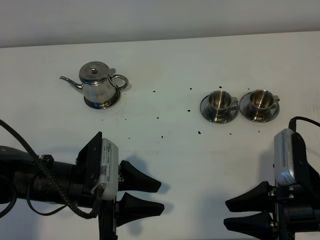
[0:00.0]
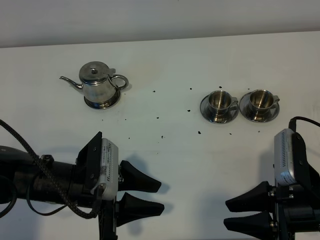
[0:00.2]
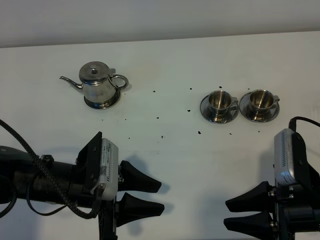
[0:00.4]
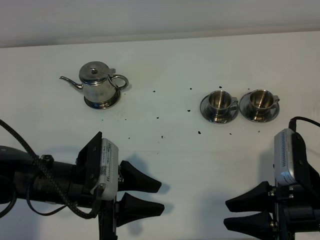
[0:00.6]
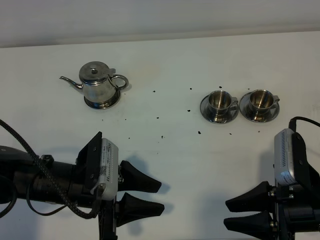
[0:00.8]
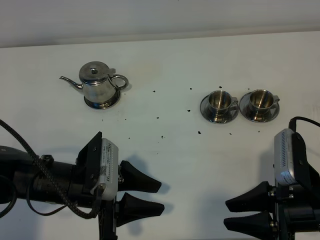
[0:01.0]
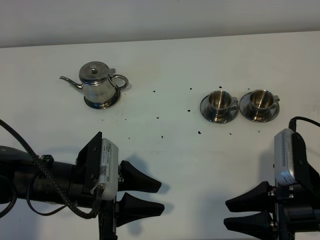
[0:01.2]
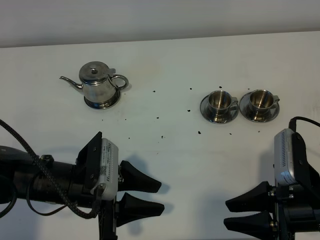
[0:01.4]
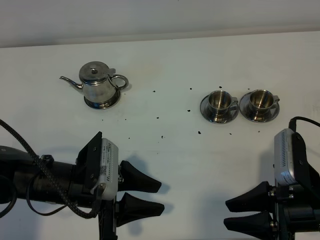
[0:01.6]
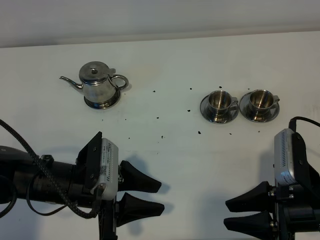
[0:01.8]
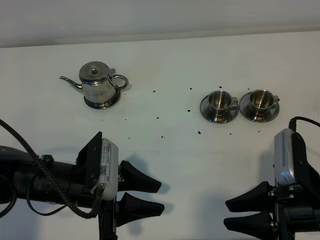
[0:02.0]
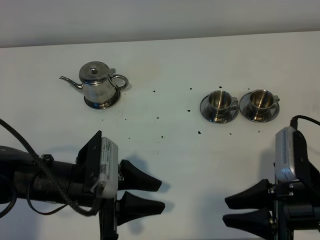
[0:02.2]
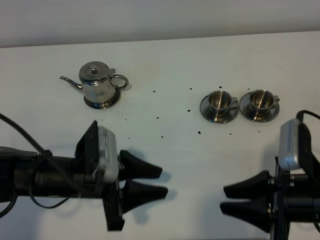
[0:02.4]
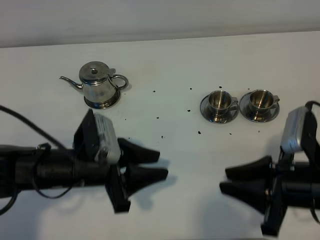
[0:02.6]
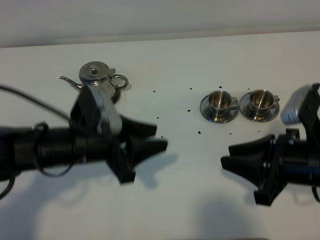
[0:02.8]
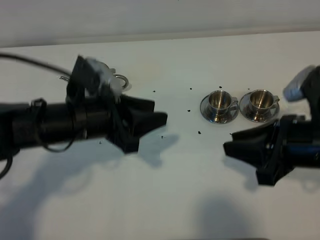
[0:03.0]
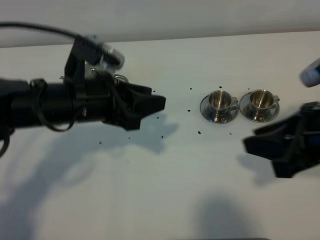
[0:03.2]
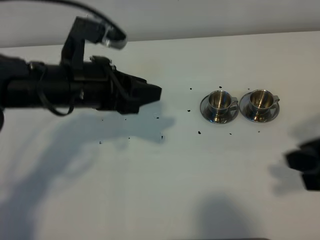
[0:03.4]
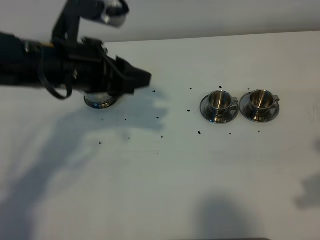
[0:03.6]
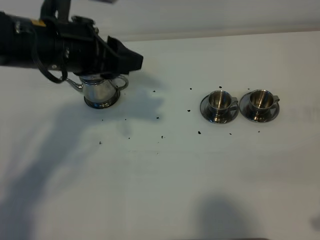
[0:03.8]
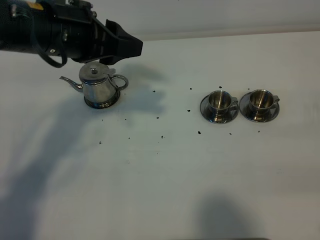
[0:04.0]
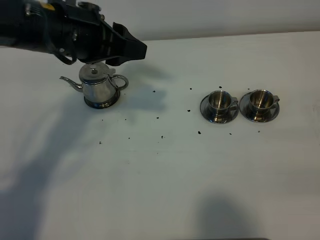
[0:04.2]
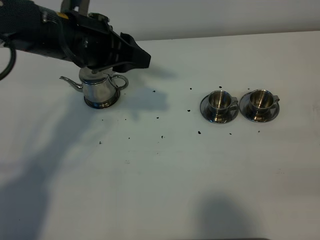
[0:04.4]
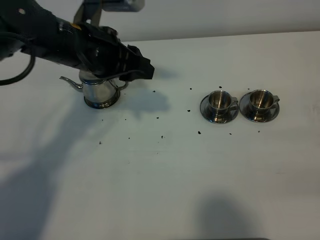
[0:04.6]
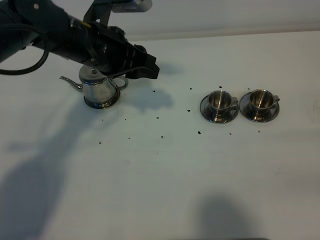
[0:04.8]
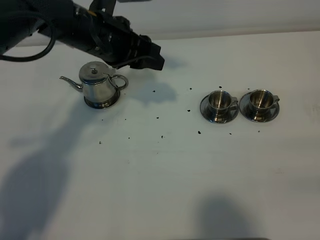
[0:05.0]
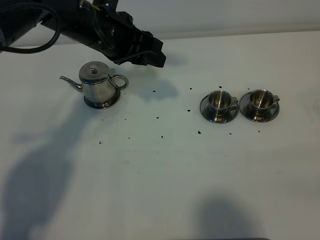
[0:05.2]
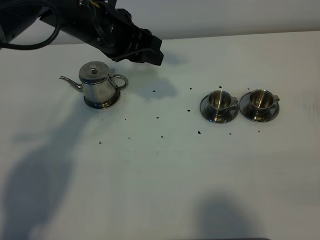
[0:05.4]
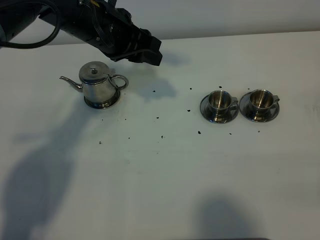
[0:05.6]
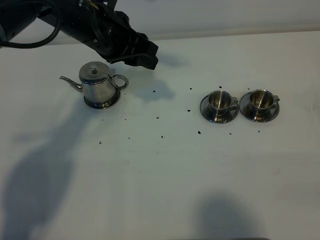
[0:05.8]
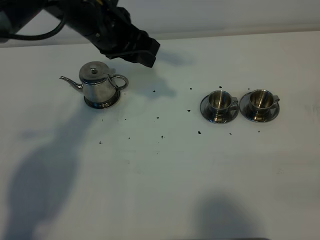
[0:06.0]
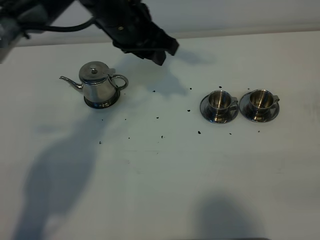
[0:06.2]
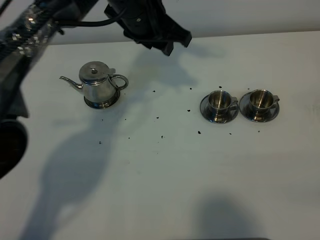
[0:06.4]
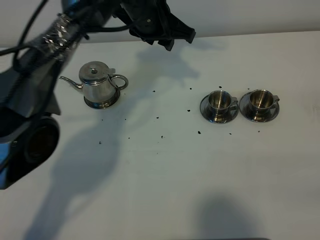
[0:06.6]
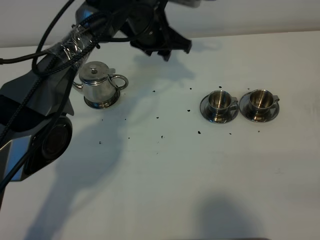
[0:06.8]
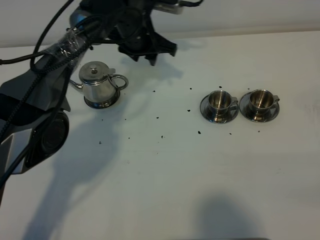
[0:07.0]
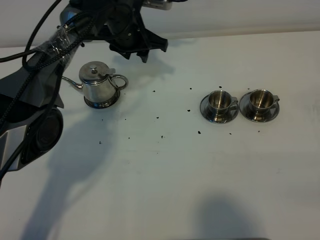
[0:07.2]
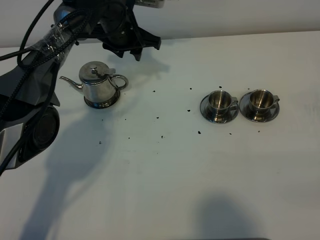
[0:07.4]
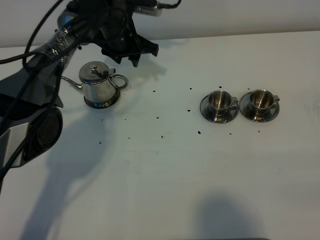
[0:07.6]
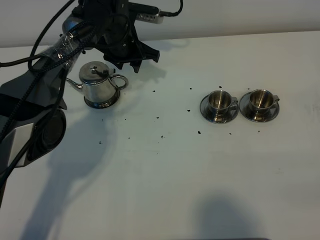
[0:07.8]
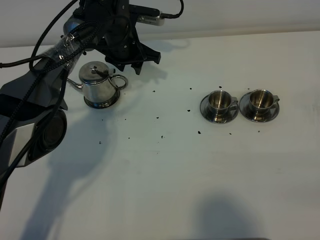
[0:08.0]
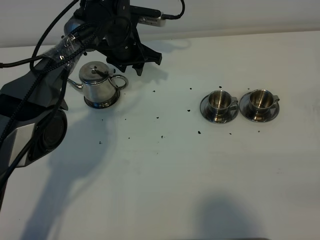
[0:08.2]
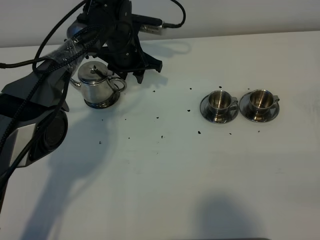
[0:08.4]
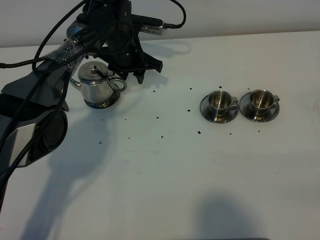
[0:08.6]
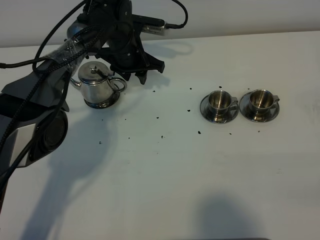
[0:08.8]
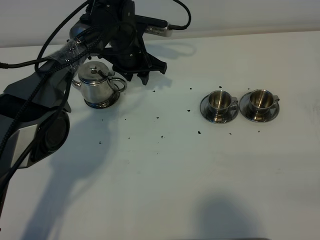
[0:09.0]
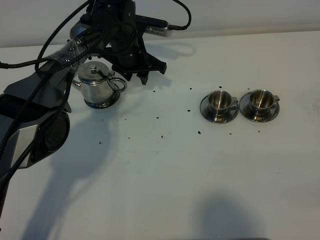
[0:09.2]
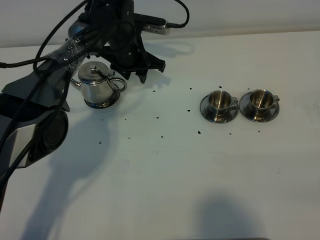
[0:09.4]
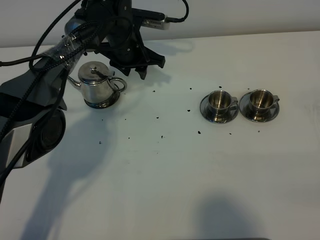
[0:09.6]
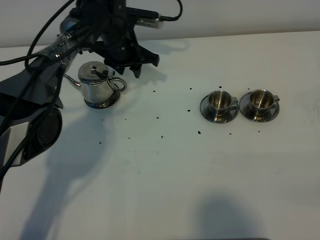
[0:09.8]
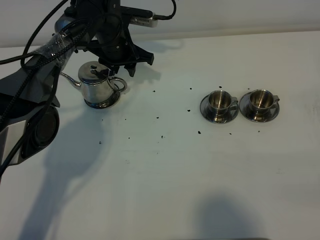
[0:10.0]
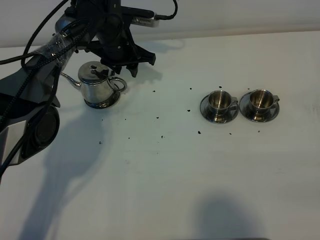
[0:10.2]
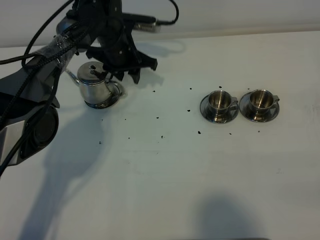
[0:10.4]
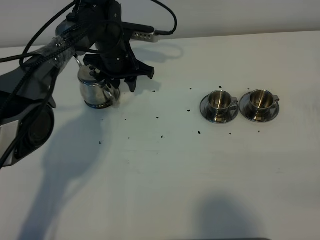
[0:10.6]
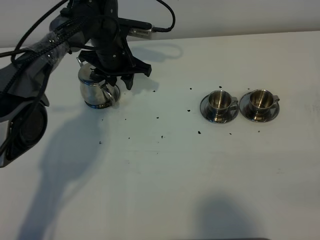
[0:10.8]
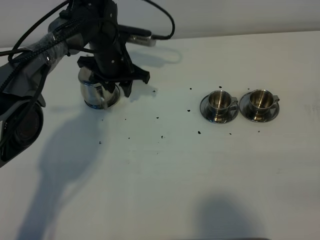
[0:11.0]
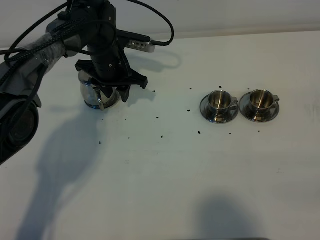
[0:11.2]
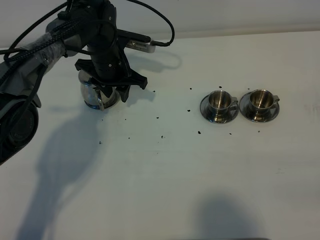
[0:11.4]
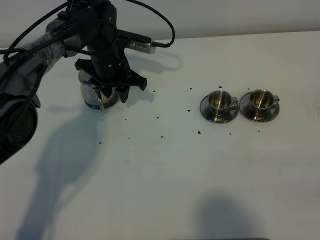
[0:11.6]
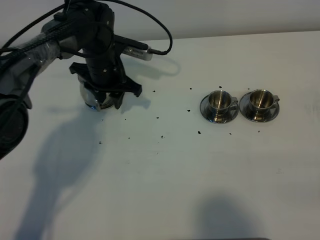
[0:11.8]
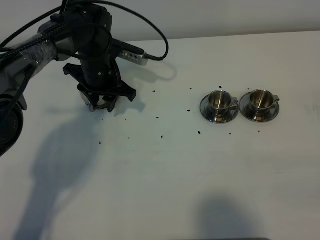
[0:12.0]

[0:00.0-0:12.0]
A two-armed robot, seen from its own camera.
Task of the whole recording: grasp the stainless steel teapot and pour the tea into the two stainless steel teacups one by one, put the stainless steel teapot back in its original place.
0:00.0 to 0:01.6: Neither gripper changes place.
0:01.6 to 0:03.0: The left gripper moves forward and upward, roughly 10 cm. The right gripper travels upward and forward by about 10 cm.
0:03.0 to 0:04.4: The right gripper travels backward and to the right by approximately 15 cm. The left gripper heads forward and upward, covering roughly 10 cm.
0:04.4 to 0:06.0: The left gripper shifts some 5 cm forward. Meanwhile the right gripper shifts approximately 5 cm backward.
0:06.0 to 0:07.6: The left gripper is displaced forward and downward by about 15 cm.
0:07.6 to 0:10.4: The grippers make only small movements.
0:10.4 to 0:12.0: The left gripper goes some 5 cm backward.

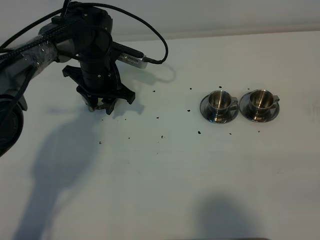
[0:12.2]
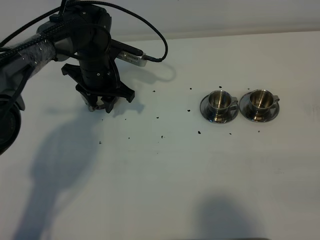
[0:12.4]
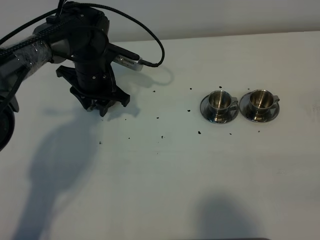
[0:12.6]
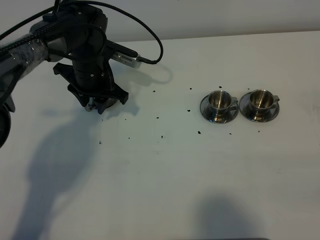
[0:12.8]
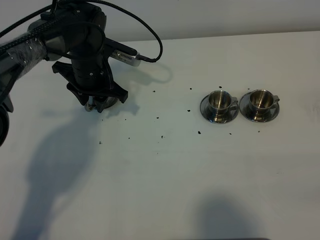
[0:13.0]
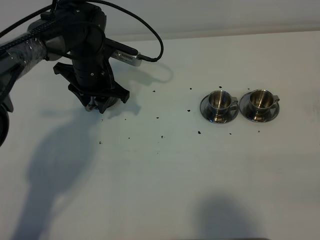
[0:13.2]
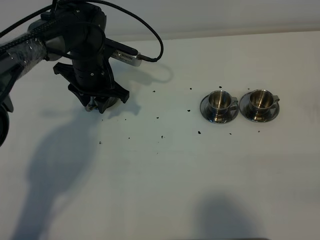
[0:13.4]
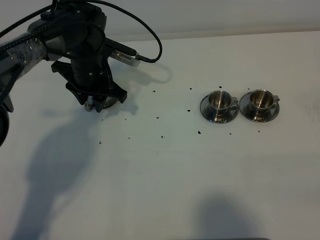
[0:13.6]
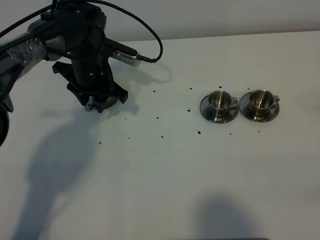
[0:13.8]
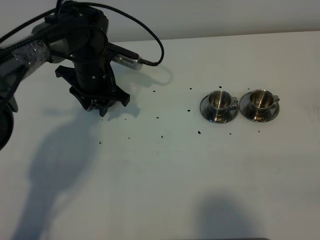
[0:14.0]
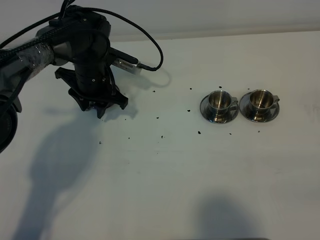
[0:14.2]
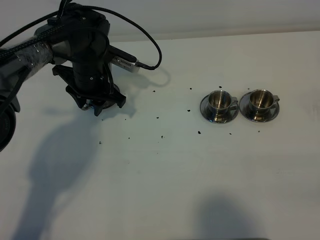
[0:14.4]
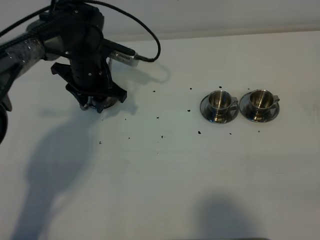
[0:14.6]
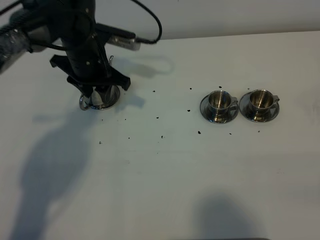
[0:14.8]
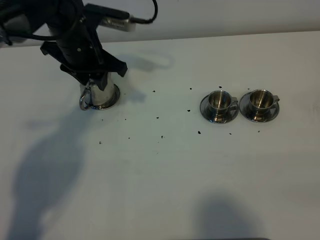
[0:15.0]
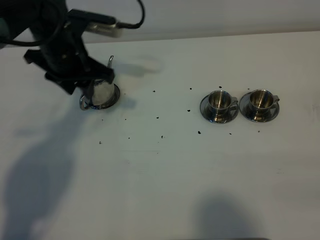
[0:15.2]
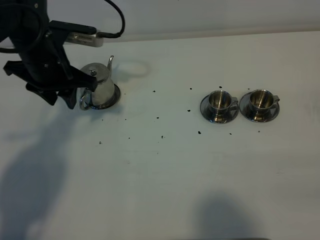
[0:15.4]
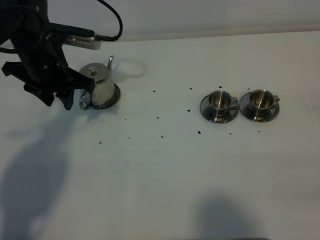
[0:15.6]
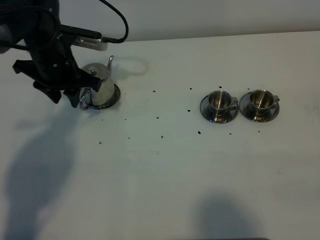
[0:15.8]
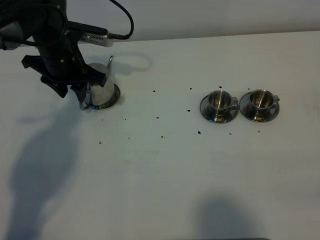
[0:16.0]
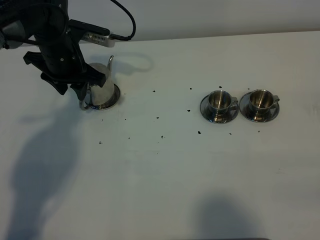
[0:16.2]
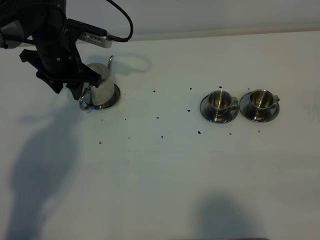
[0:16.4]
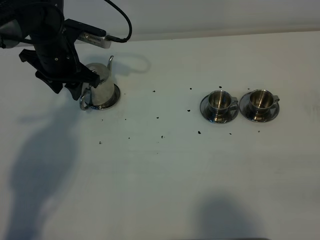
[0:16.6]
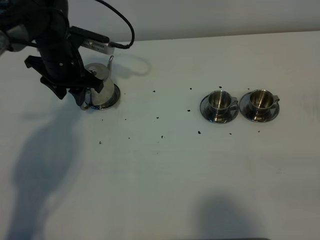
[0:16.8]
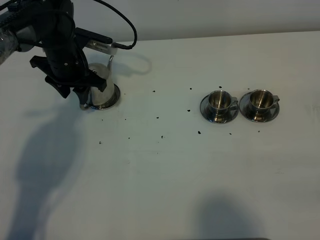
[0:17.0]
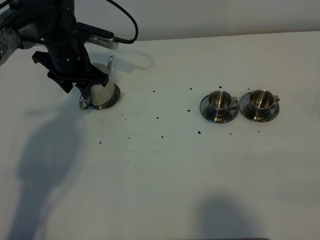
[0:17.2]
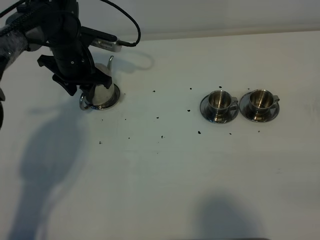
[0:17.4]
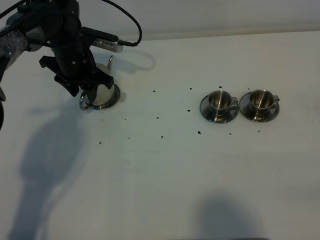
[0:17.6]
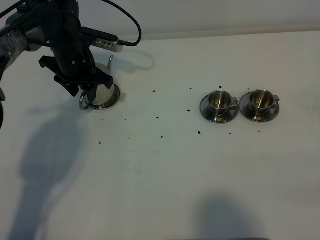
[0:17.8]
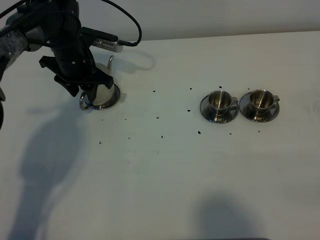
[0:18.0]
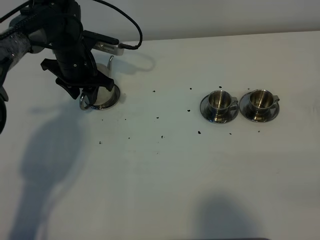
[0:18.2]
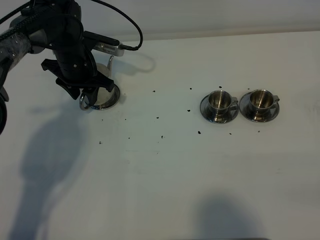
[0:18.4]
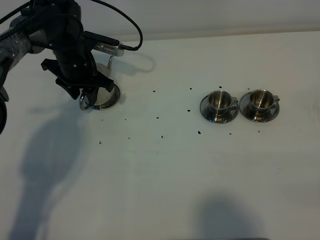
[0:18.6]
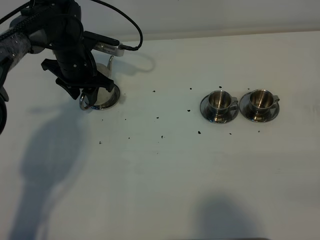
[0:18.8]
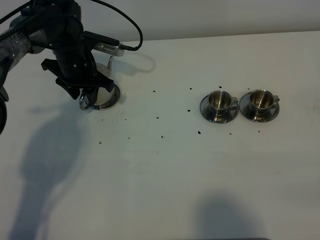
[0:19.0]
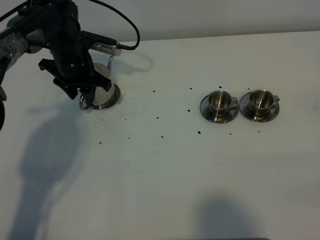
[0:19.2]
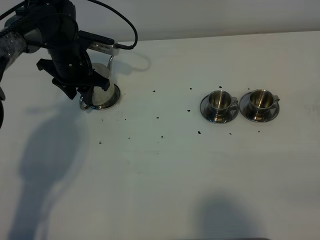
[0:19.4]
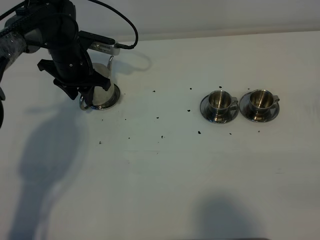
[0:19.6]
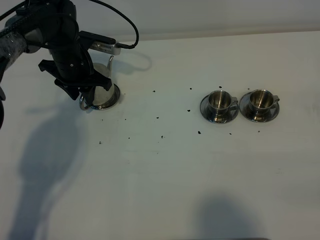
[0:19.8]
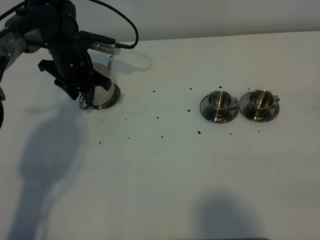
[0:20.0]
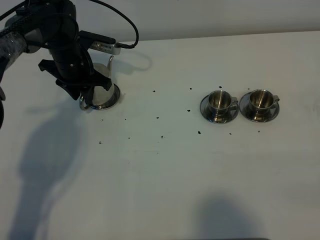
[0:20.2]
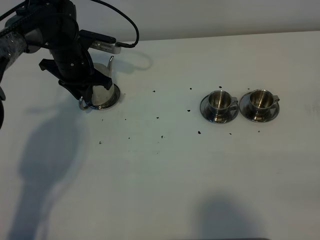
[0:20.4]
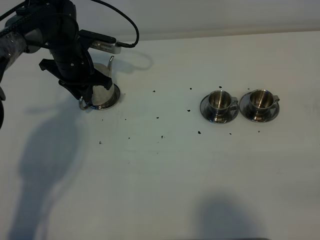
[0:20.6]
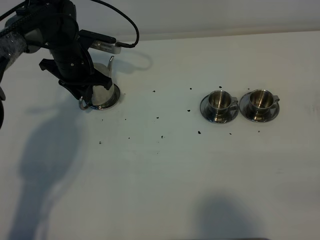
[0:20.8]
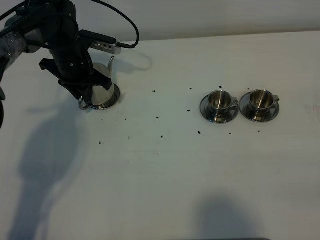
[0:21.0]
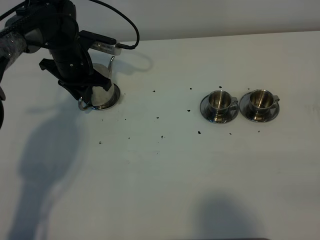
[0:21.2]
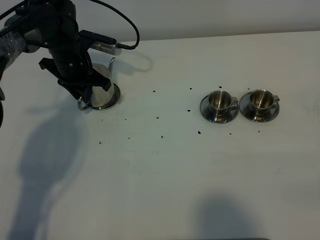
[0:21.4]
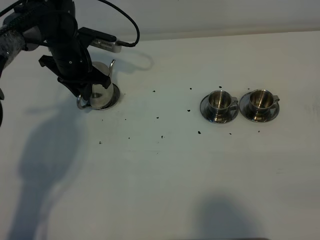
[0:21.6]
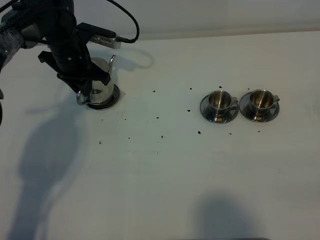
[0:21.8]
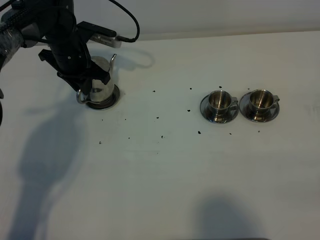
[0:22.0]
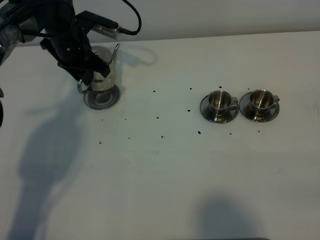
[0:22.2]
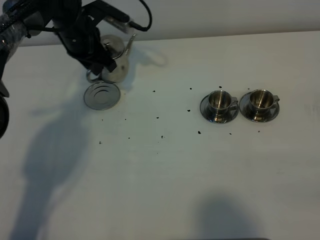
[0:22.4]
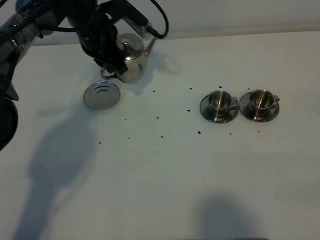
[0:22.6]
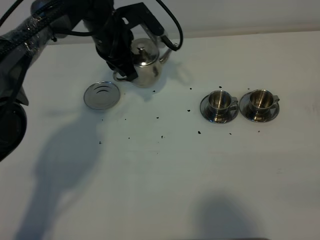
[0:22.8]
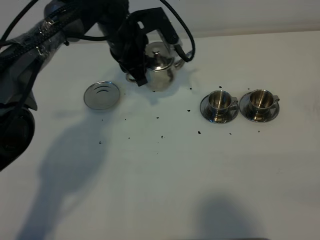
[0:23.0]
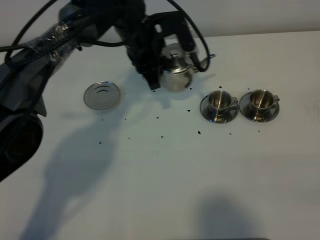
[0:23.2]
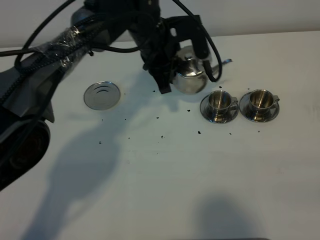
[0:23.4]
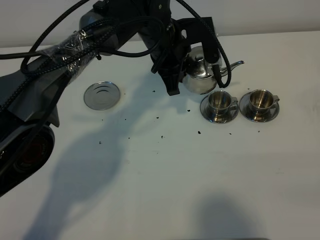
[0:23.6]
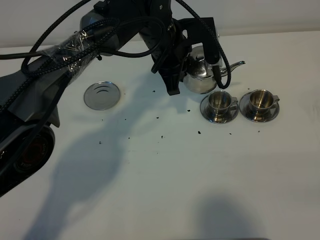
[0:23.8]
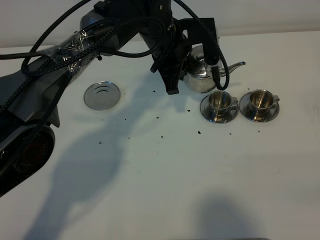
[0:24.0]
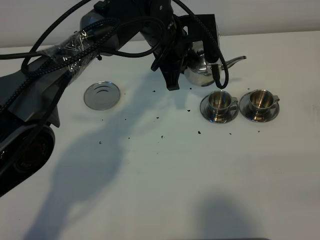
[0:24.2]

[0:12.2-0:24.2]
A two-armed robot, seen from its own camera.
Task of the whole recording: grasp the stainless steel teapot and pour the tea into the two stainless steel teacups one by one, put the stainless steel teapot back in its original place.
Step, 0:12.2 to 0:22.0: Pick up the teapot with the left gripper.
0:12.2 to 0:13.8: The grippers move only a little.
0:13.8 to 0:15.2: The left gripper heads upward, covering about 10 cm.
0:15.2 to 0:16.6: The left gripper changes place by some 5 cm.
0:16.6 to 0:18.2: The left gripper ends up roughly 5 cm from where it was.
0:18.2 to 0:19.8: Both grippers stay put.
0:21.2 to 0:22.6: The left gripper heads to the right and upward, covering about 10 cm.
0:22.6 to 0:24.2: The left gripper moves to the right, roughly 15 cm.
